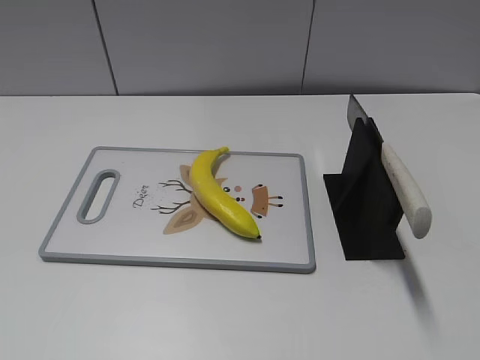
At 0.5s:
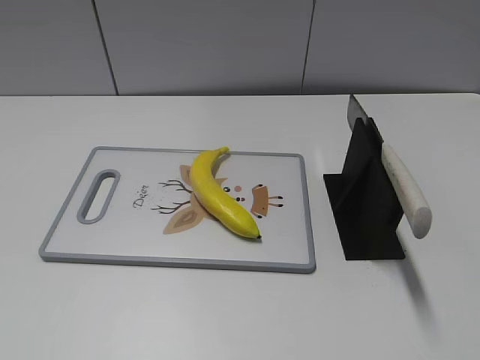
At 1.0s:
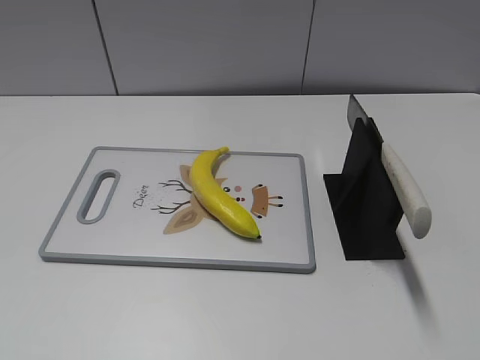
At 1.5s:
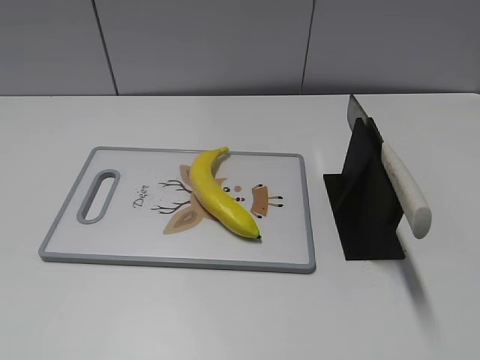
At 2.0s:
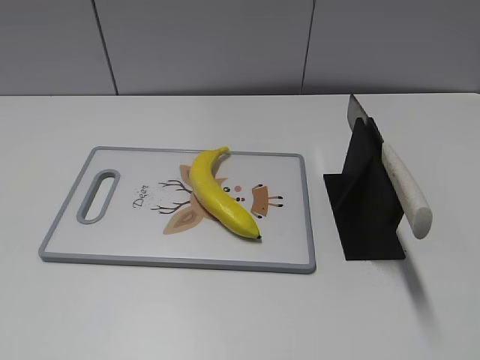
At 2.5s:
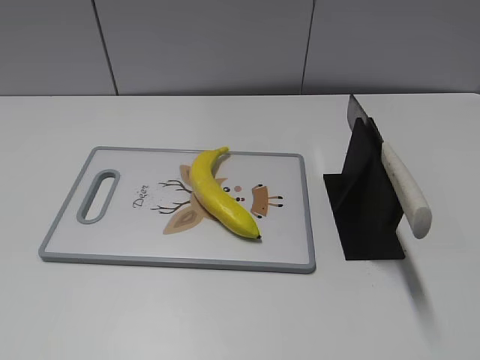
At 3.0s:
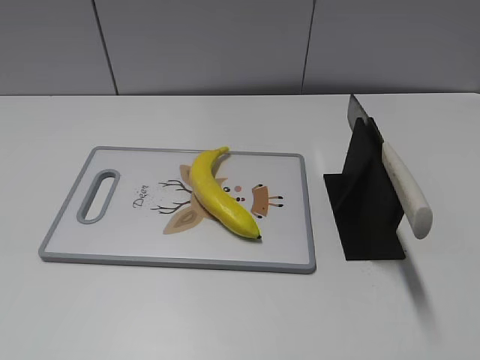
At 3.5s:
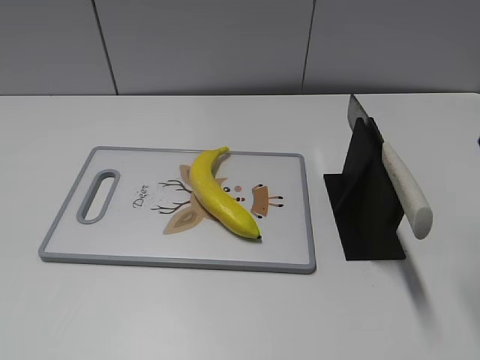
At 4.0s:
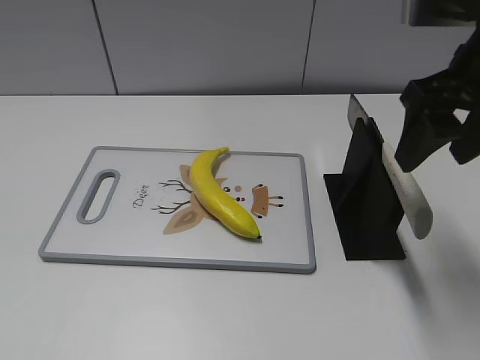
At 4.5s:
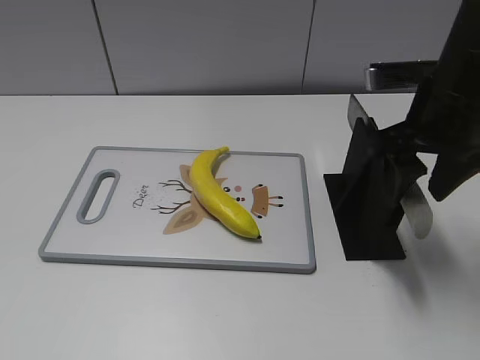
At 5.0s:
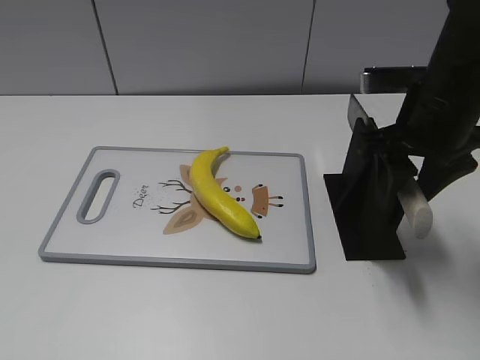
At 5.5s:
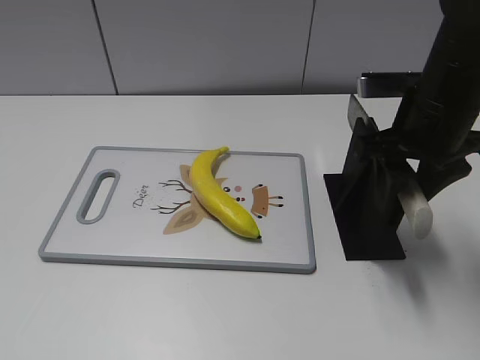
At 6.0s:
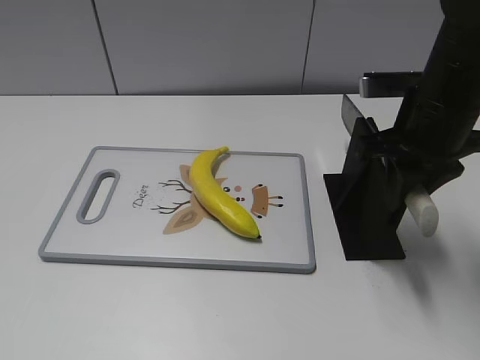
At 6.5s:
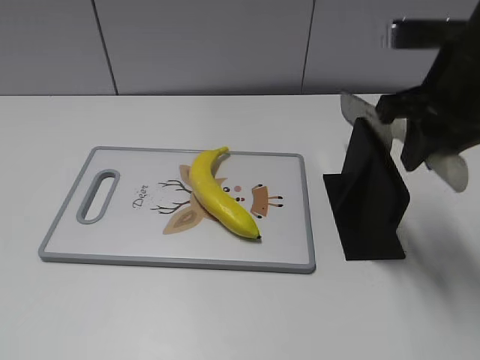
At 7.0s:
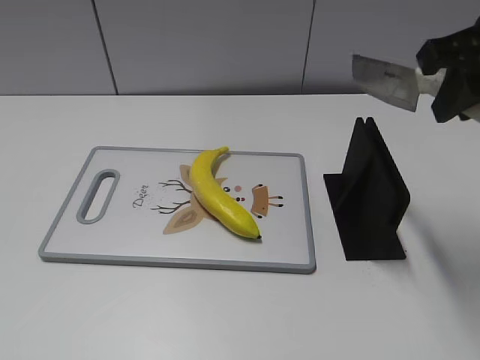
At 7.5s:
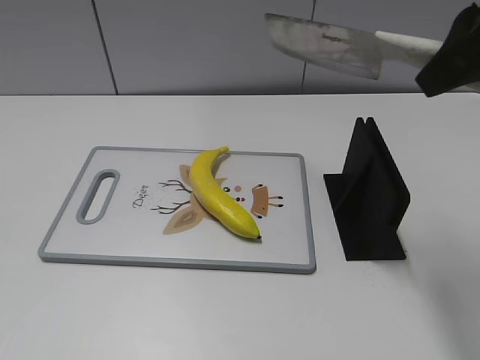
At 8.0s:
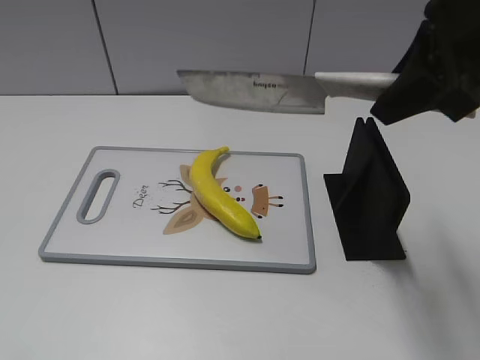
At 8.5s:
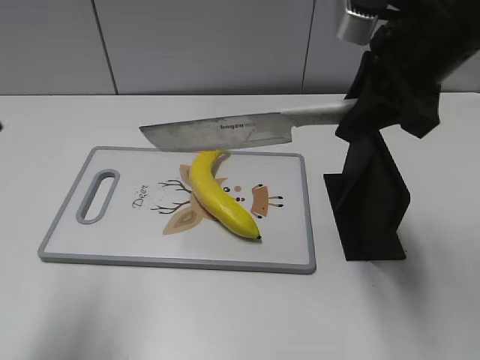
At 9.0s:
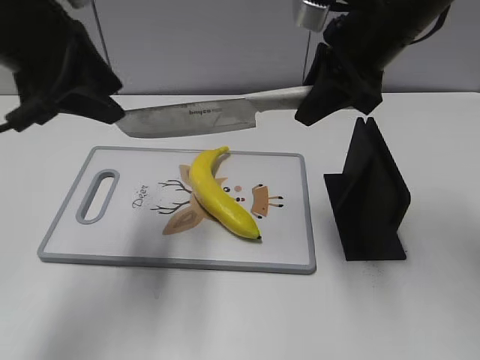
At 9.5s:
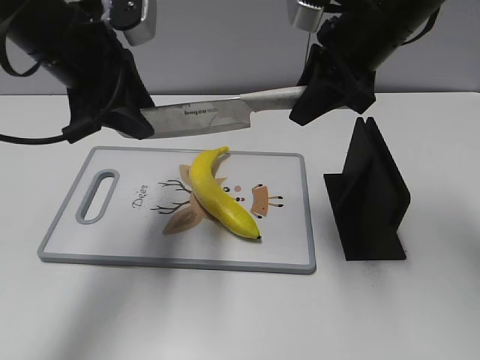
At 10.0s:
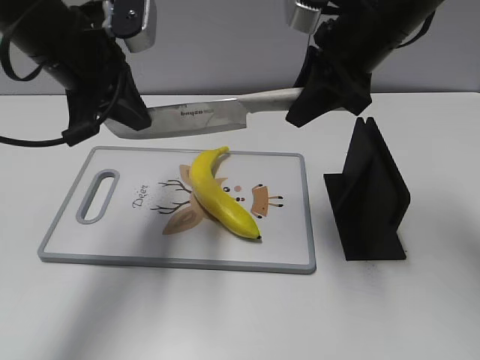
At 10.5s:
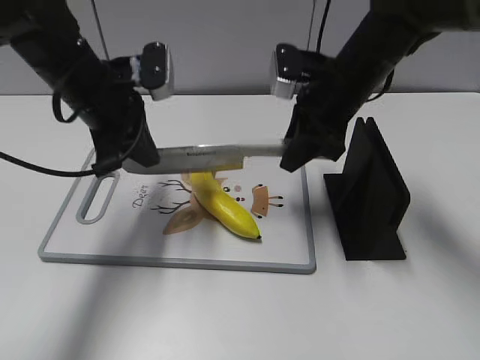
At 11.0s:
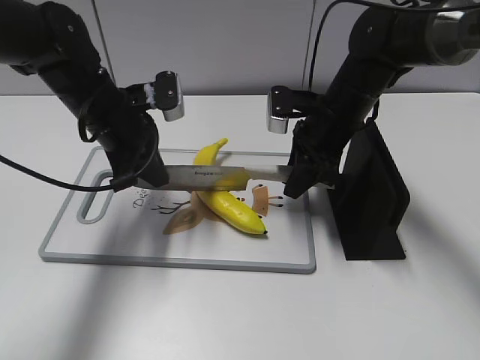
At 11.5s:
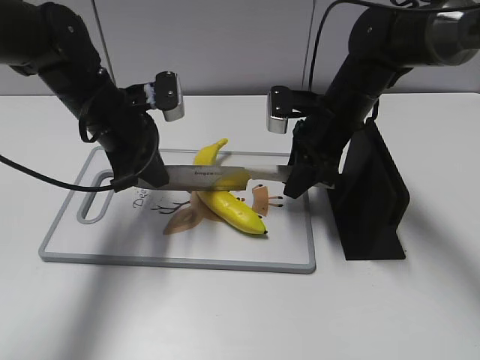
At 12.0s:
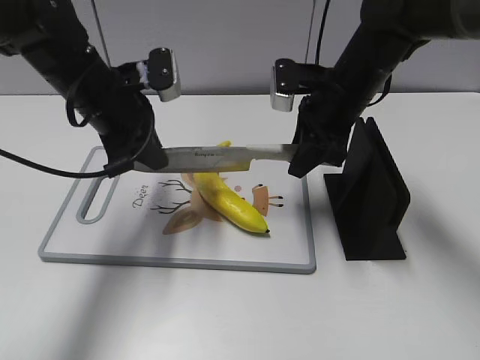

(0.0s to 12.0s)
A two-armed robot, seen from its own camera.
Task of the whole recording: cut plastic banana.
Step, 0.0s - 7.0s: Grab the knife handle with your right hand.
2.0s - 4.0s: The right gripper travels forward by approximately 25 cm.
4.0s - 6.0s: The right gripper goes some 10 cm downward, and closes.
6.0s - 8.0s: The right gripper goes approximately 10 cm upward, while the left gripper goes about 5 cm upward.
8.0s - 10.0s: The right gripper is displaced forward, downward and to the left by approximately 15 cm, while the left gripper is displaced forward and to the right by about 35 cm, and closes.
10.0s - 12.0s: Both grippers move downward, some 10 cm.

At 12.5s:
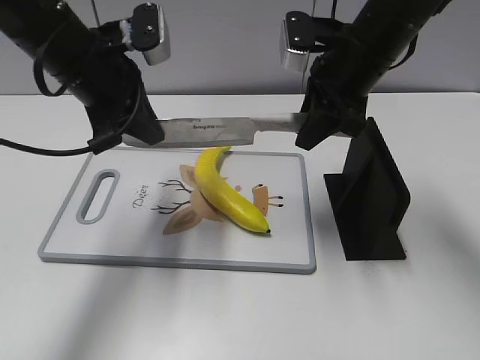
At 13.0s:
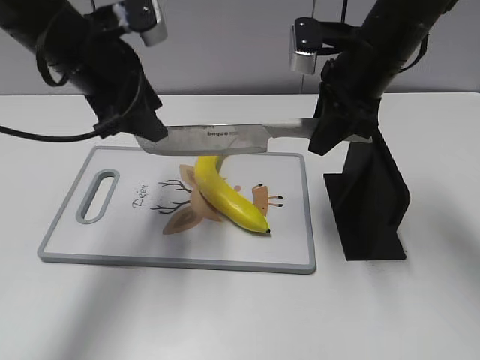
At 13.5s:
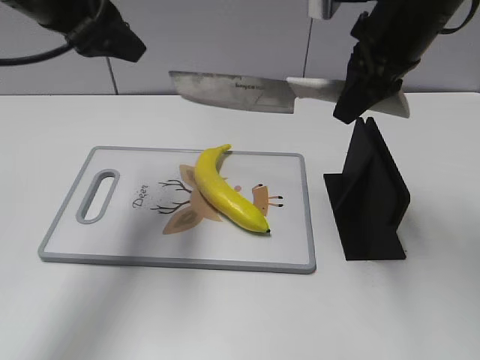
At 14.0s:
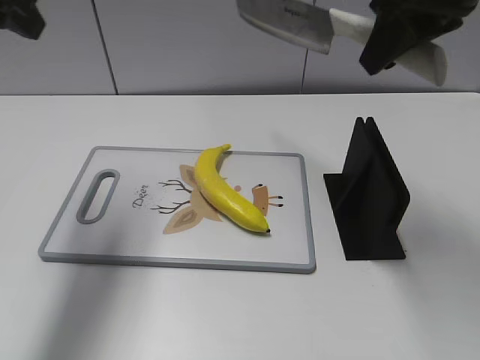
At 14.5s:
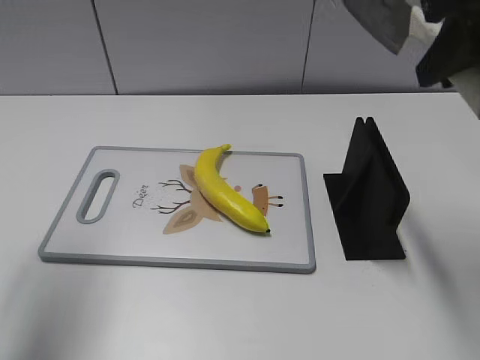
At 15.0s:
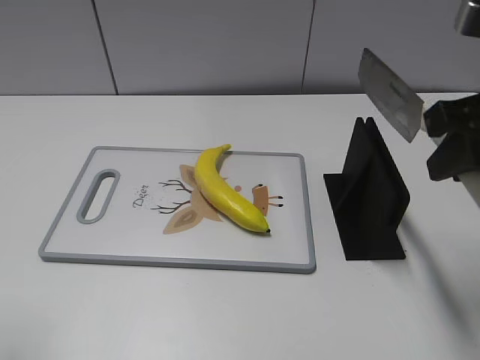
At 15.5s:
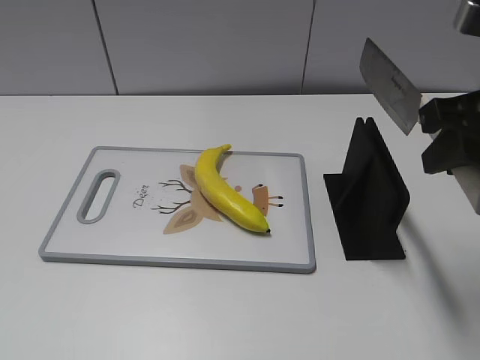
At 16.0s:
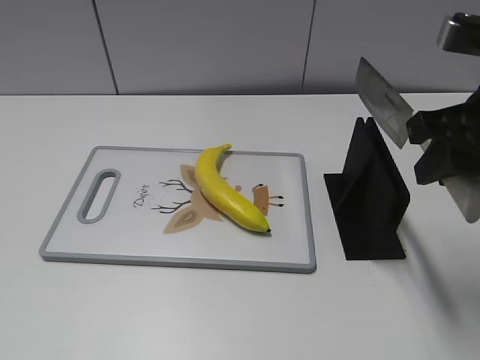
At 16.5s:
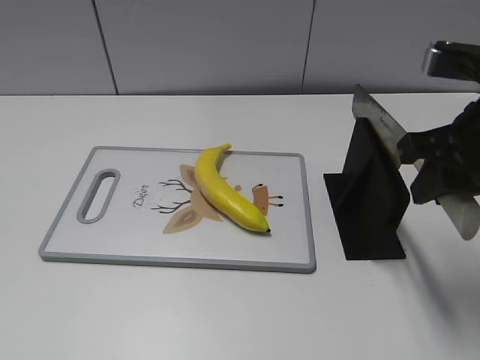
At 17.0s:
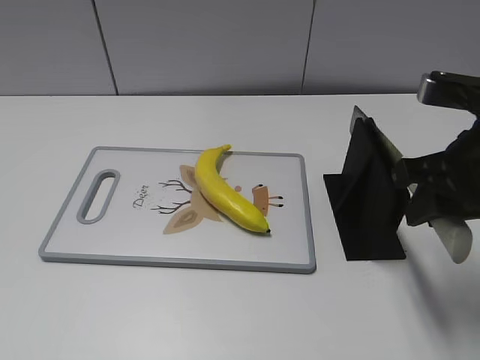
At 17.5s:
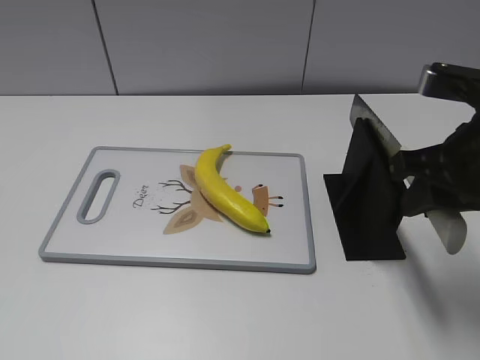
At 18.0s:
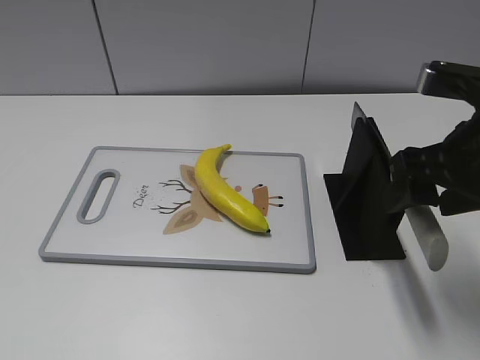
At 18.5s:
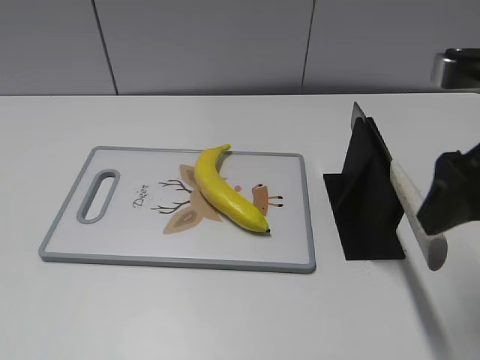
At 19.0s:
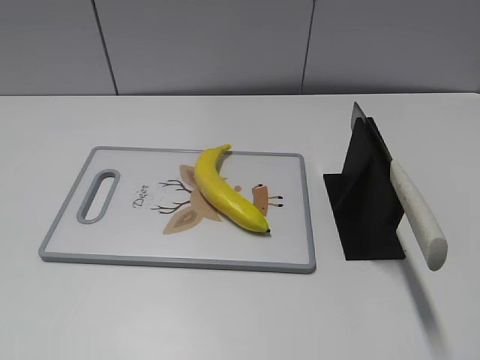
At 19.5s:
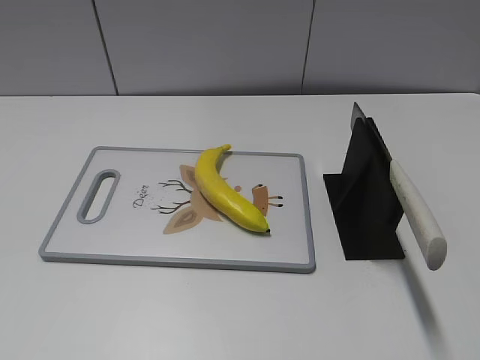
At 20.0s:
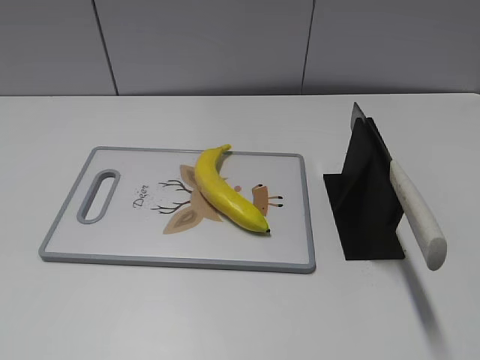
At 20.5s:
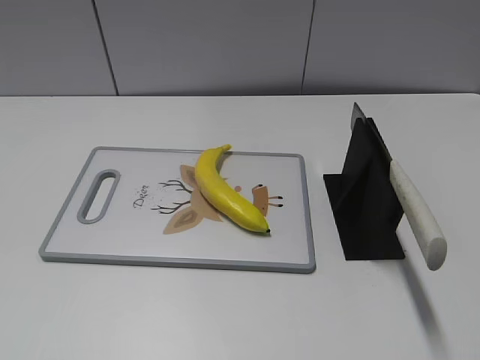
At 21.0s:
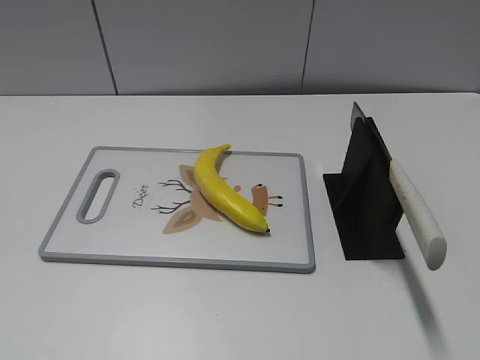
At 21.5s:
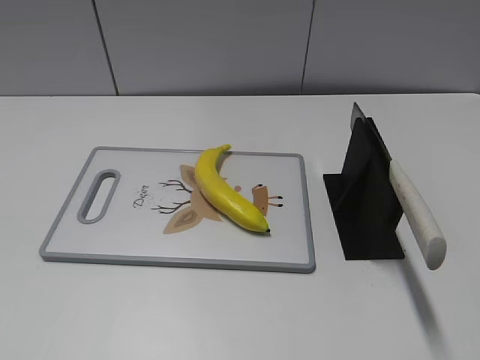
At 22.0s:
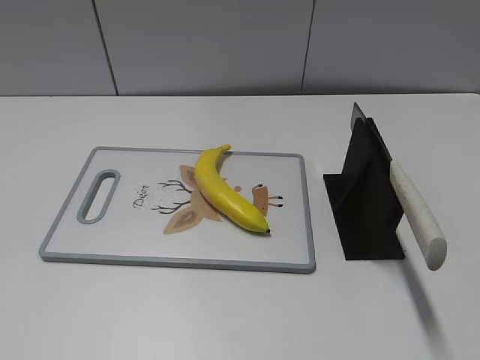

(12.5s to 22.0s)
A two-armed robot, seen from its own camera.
Task of the whole recording: cut plastic banana.
Step, 12.5s - 13.0s: Cut the banana with your right hand.
Step, 14.0s - 15.5s: Lift the knife with your right hand.
Step, 16.0s - 22.0s: Place the knife on the storage rack with your right hand.
12.5s - 14.5s: The right gripper is displaced upward, backward and to the right by some 20 cm; the left gripper is displaced to the left, backward and upward by approximately 20 cm, and opens.
14.5s - 16.5s: The left gripper travels backward by approximately 25 cm. Meanwhile the right gripper is displaced downward by about 10 cm.
16.5s - 18.0s: The right gripper opens up.
18.0s - 20.0s: The right gripper heads backward, covering approximately 20 cm.

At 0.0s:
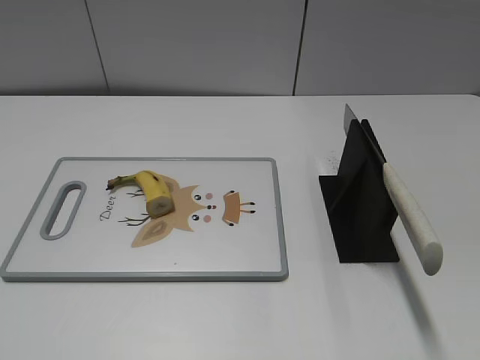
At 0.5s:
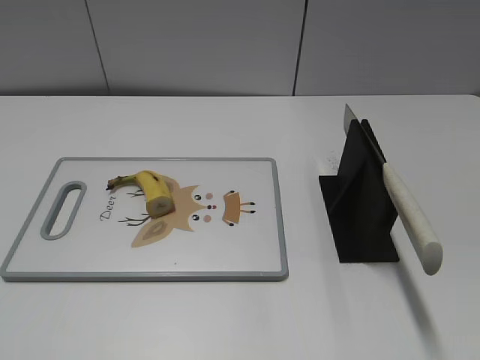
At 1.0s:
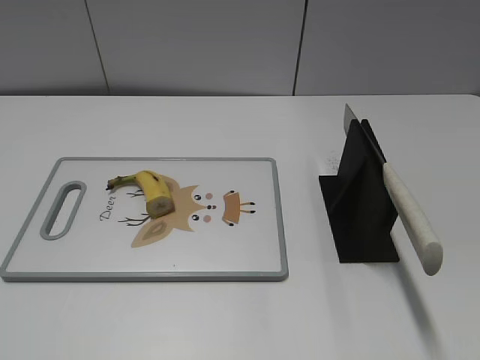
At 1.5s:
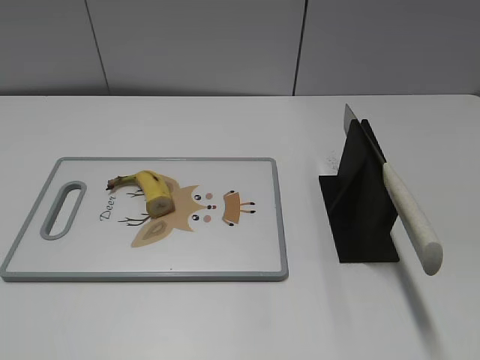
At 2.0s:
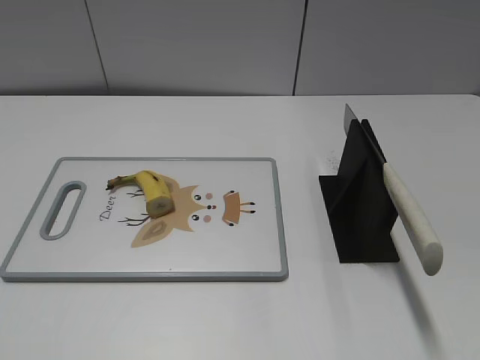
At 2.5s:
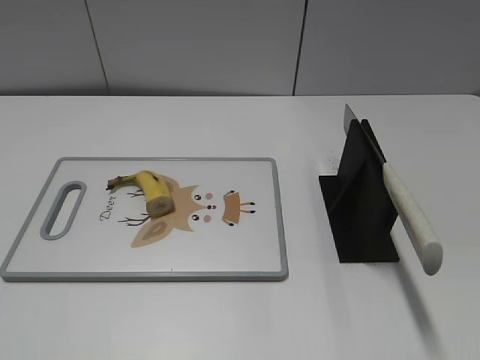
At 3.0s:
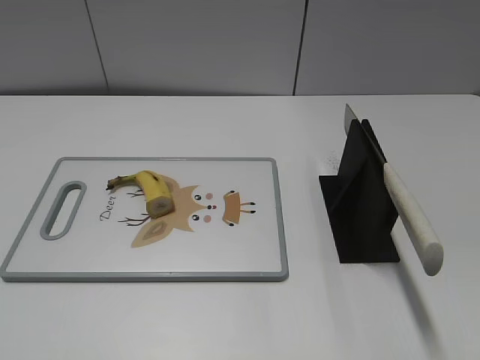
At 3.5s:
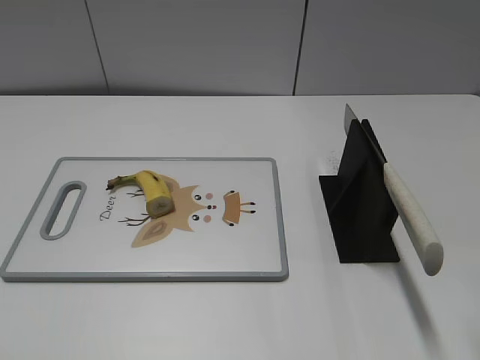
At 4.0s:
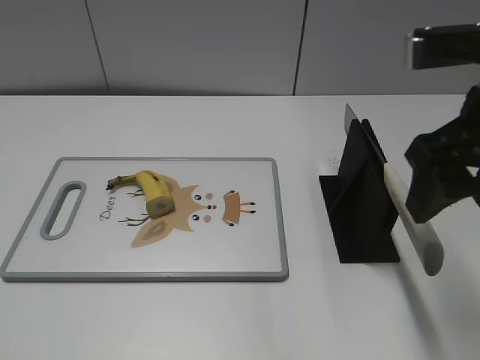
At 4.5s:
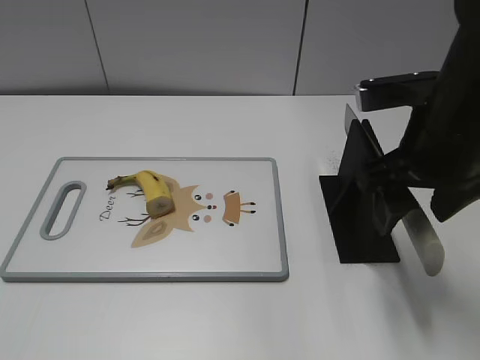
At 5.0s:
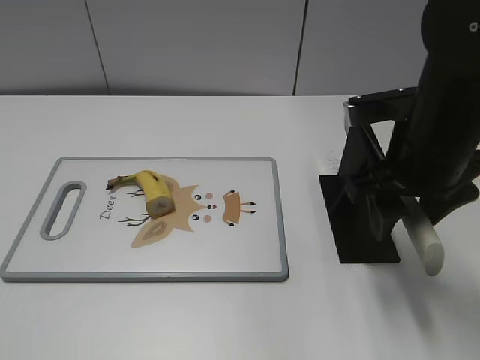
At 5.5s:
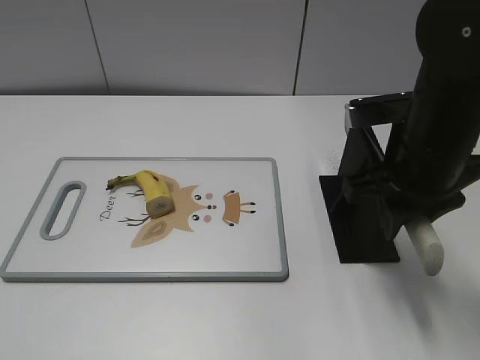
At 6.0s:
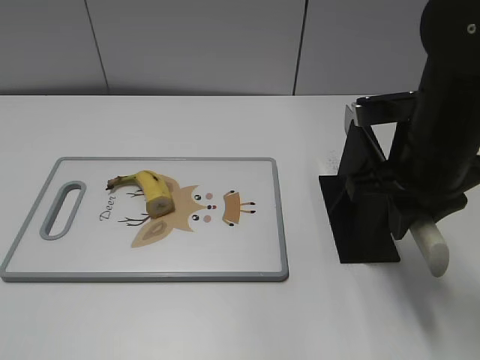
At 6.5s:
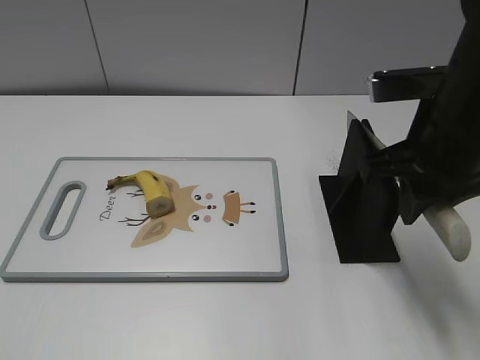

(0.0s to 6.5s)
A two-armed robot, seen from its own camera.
Task of the whole recording: cut banana.
2.0s - 4.5s: The right gripper moves forward and to the left, some 30 cm.
4.5s - 6.5s: The right gripper closes up.
